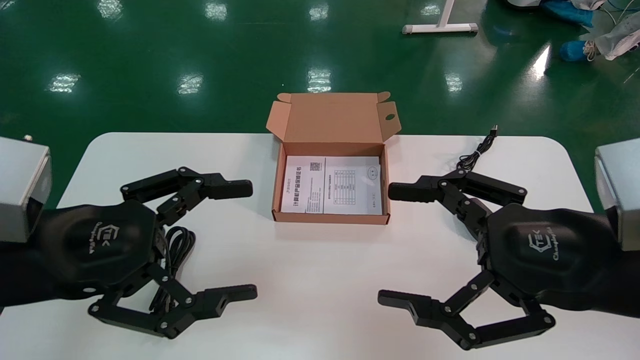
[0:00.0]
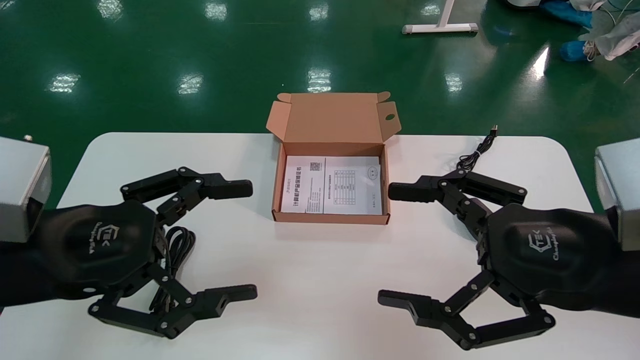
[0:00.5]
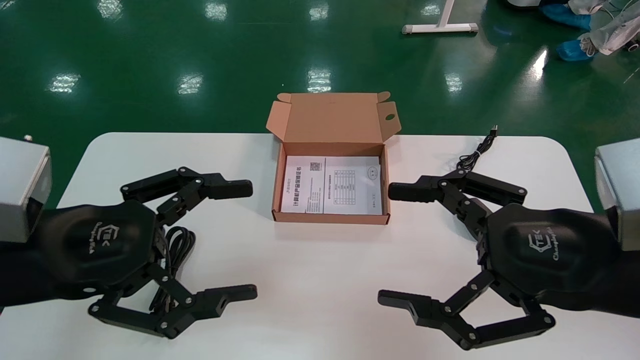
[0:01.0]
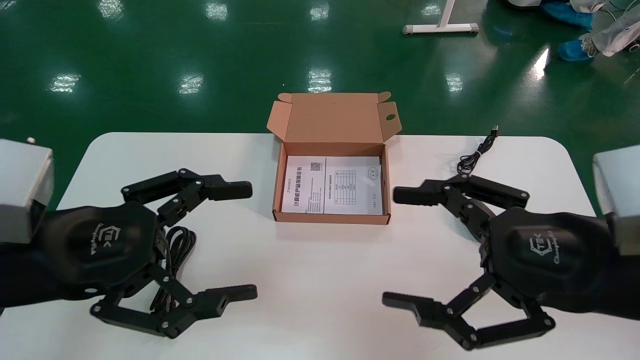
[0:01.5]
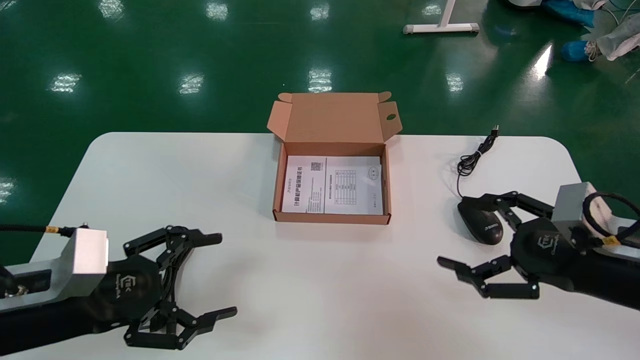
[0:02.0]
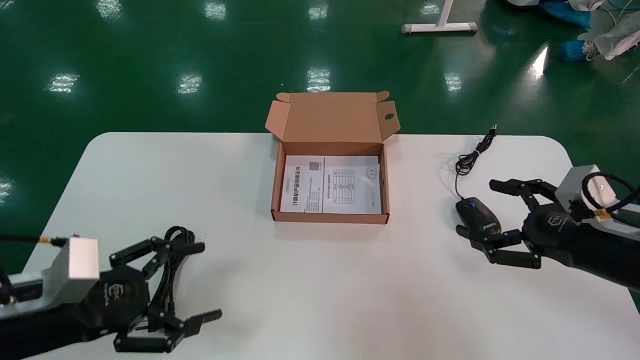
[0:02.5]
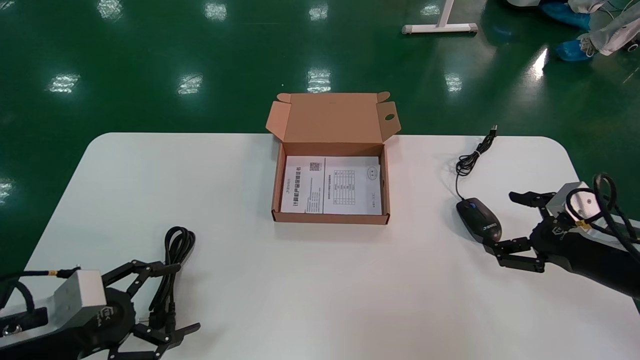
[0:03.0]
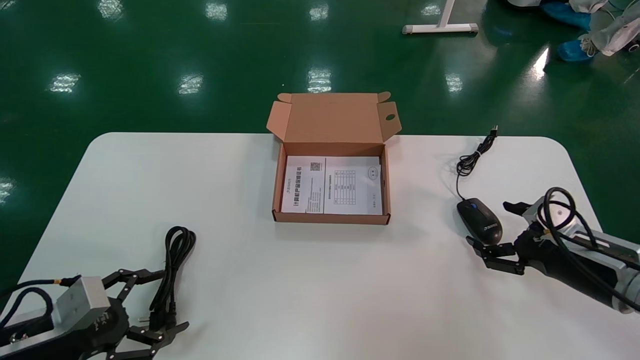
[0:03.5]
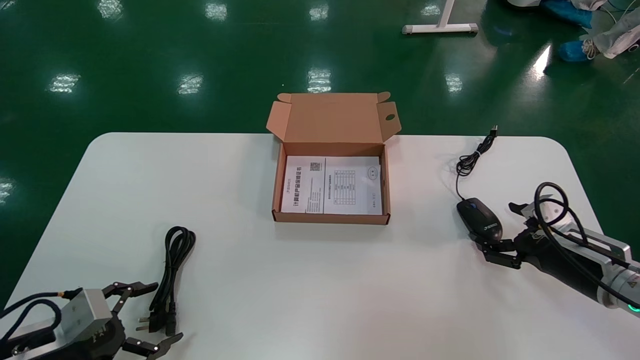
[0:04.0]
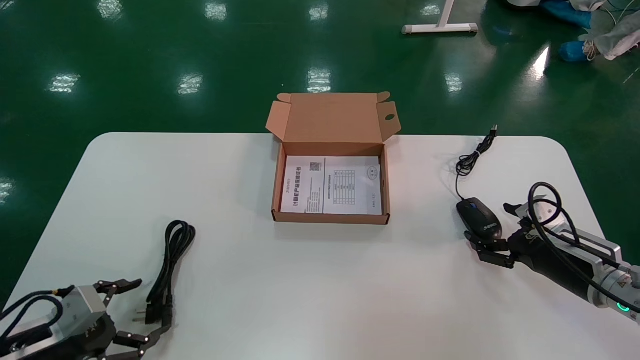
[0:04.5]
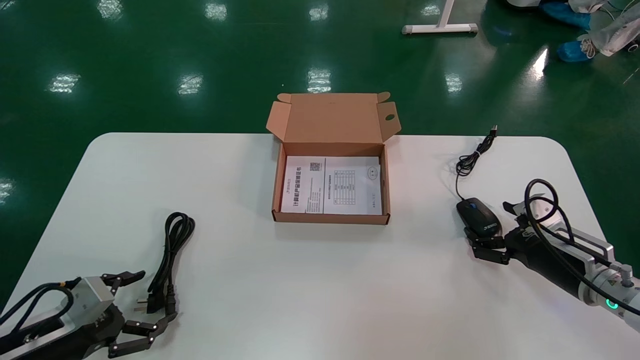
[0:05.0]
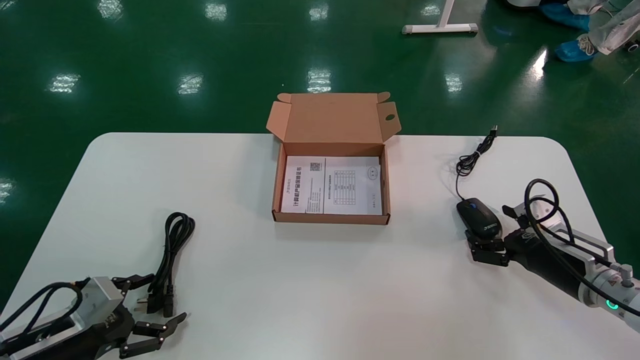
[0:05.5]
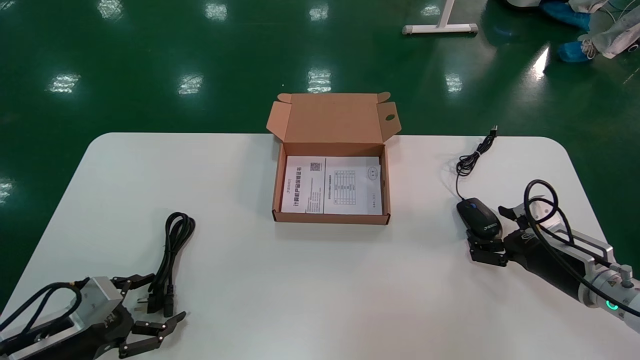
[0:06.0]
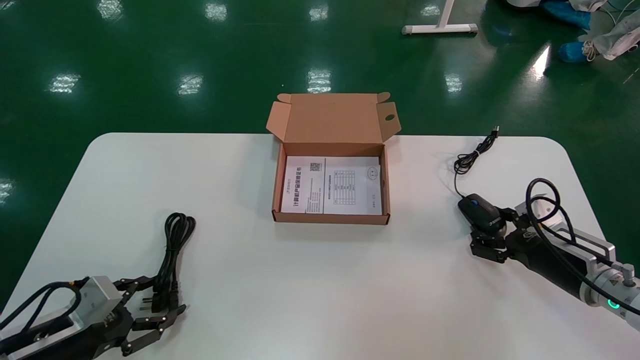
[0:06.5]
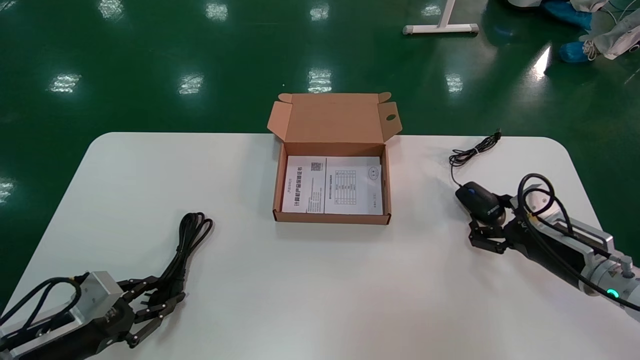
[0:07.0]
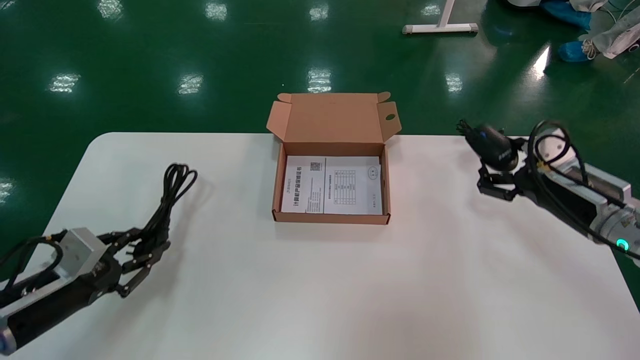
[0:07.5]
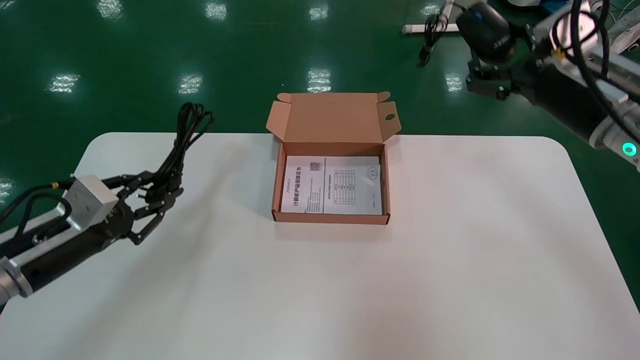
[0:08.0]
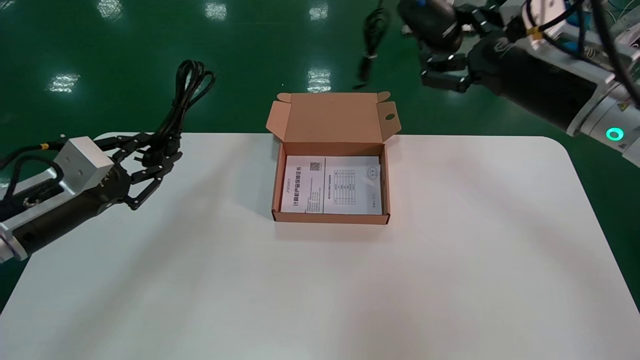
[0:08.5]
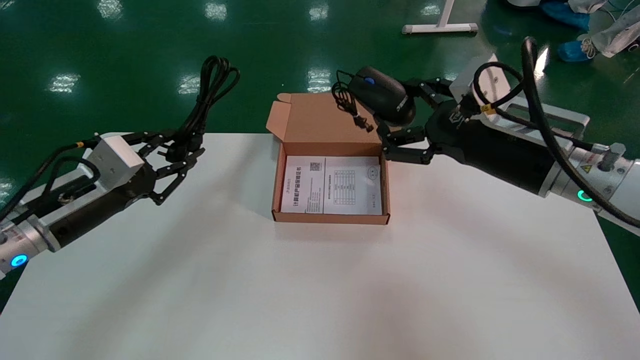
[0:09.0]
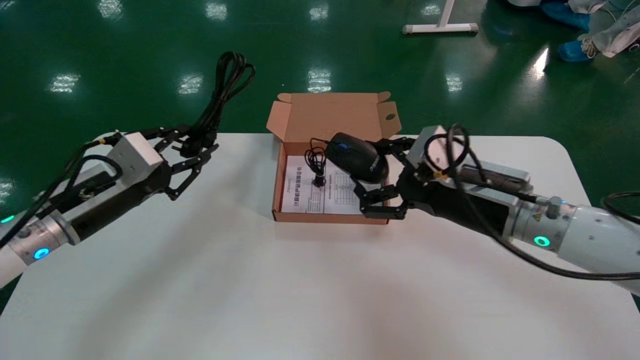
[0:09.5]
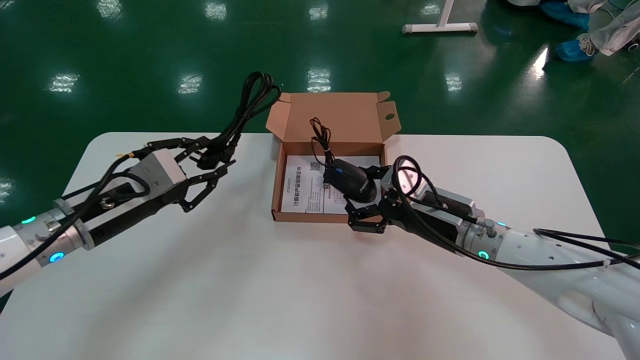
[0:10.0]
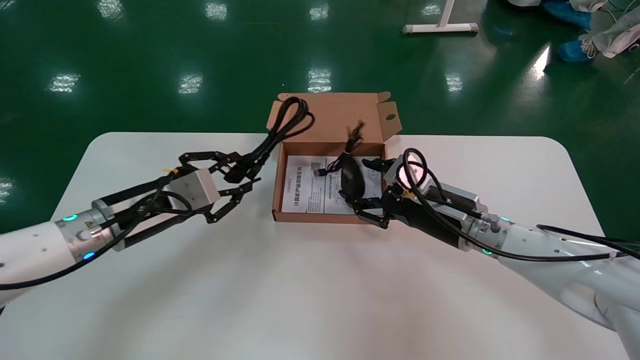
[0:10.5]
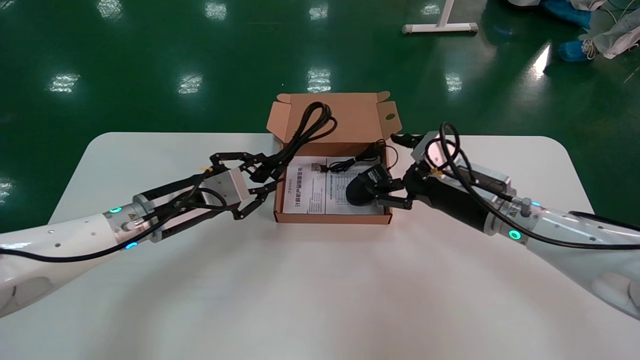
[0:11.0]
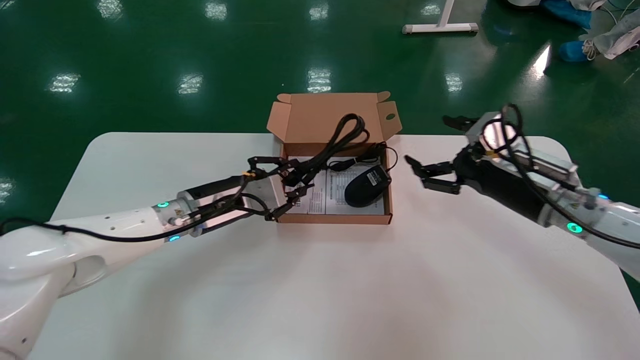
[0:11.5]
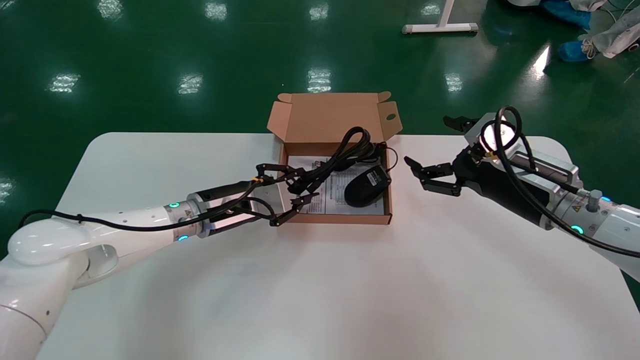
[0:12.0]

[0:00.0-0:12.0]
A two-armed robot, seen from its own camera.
Step, 0:02.0 to 0:07.0: Grab and pick up the mouse and power cord from the accessory packaging area.
0:00.0 to 0:02.0: The left gripper is displaced downward by approximately 10 cm, while the right gripper moves to the right, forward and downward, some 10 cm.
0:02.0 to 0:04.0: The left gripper goes some 15 cm downward and to the left. Meanwhile the right gripper travels forward and downward by some 15 cm.
0:04.0 to 0:06.0: The grippers stay close to where they were, moving slightly.
0:06.0 to 0:08.0: The left gripper goes about 10 cm upward, and closes its fingers. Meanwhile the right gripper heads upward, covering roughly 20 cm, and closes up.
0:08.0 to 0:10.0: The left gripper moves to the right and upward, approximately 10 cm. Meanwhile the right gripper moves to the left and downward, some 20 cm.
0:10.0 to 0:12.0: The right gripper is displaced to the right and upward by about 10 cm, and opens its fingers, while the left gripper travels to the right and forward by roughly 15 cm.

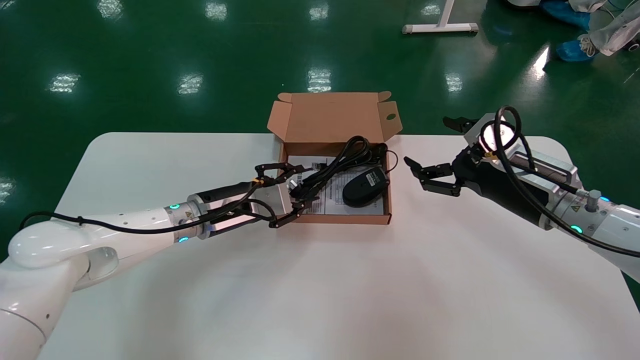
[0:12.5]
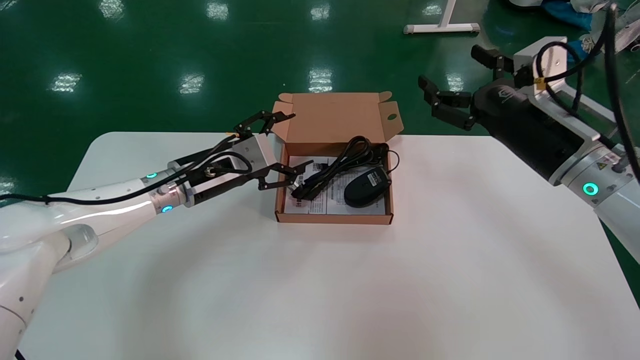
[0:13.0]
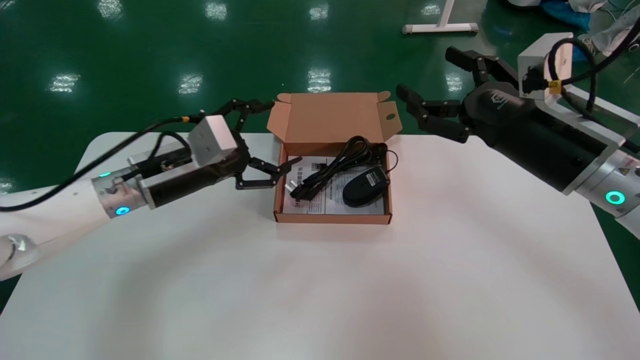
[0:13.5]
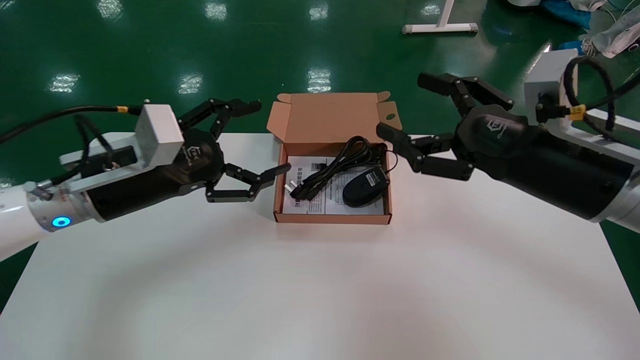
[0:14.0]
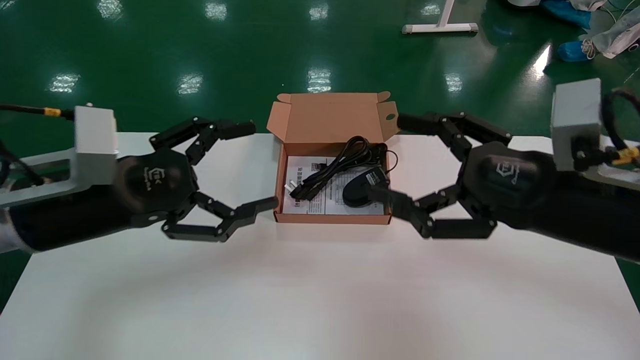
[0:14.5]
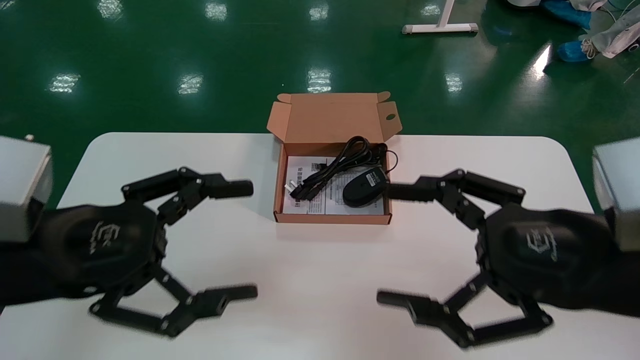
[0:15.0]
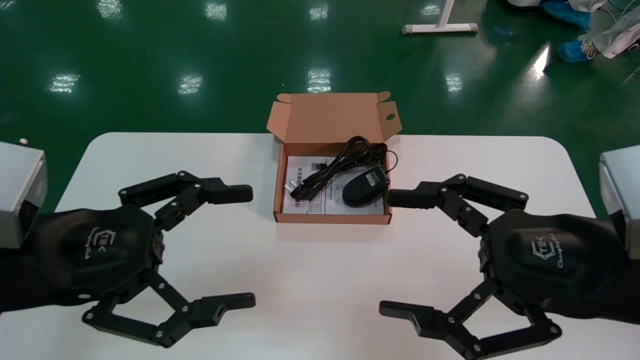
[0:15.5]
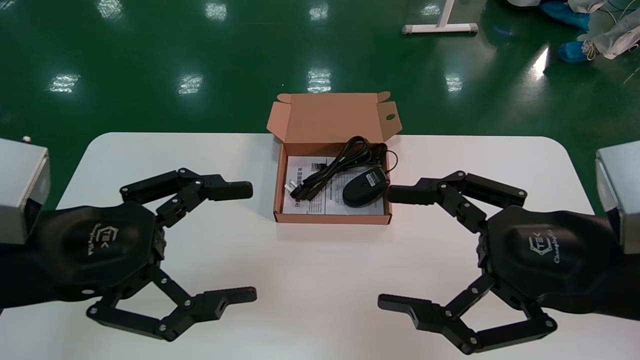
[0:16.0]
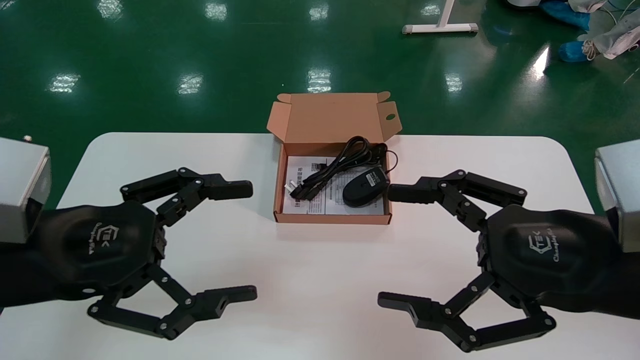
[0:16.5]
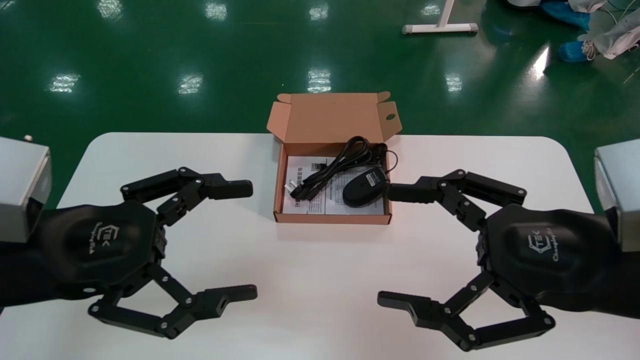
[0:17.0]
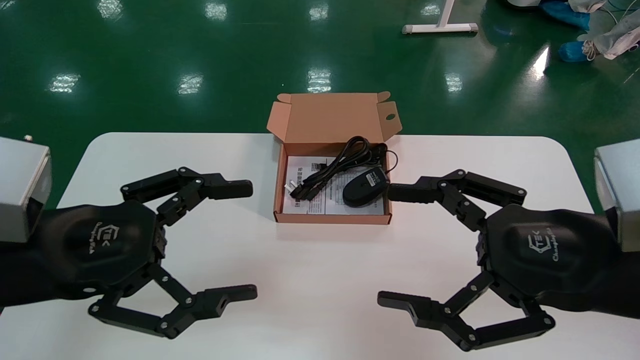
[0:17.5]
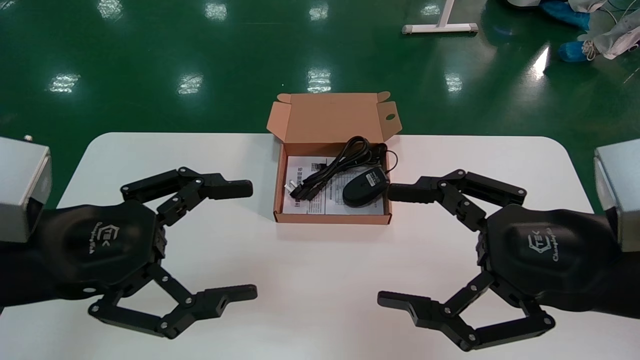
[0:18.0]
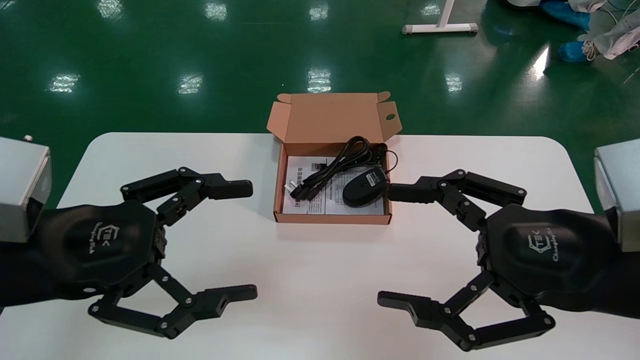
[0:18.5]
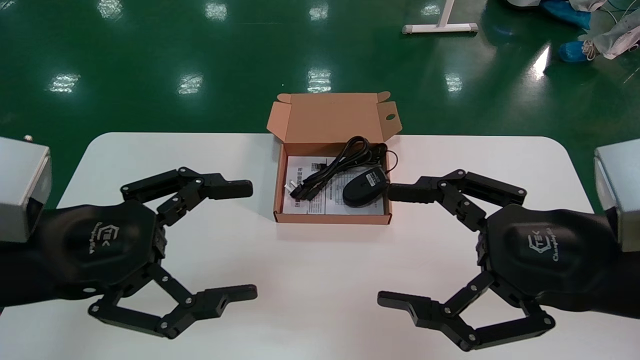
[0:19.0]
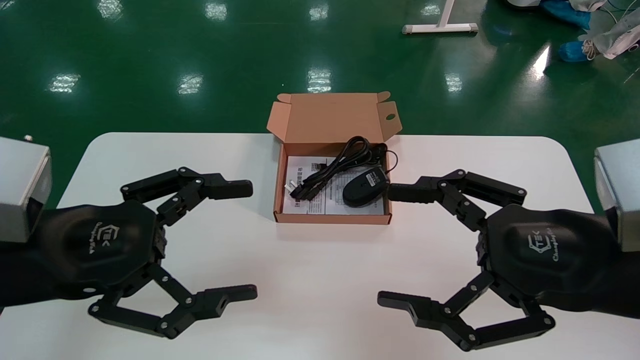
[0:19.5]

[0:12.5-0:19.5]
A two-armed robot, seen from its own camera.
0:12.5 to 0:14.5: The right gripper is displaced backward by approximately 15 cm. The left gripper moves backward, upward and to the left, approximately 20 cm, and opens.
0:14.5 to 0:16.0: The two grippers go roughly 5 cm backward.
0:16.0 to 0:19.5: Both grippers stay about where they are.
